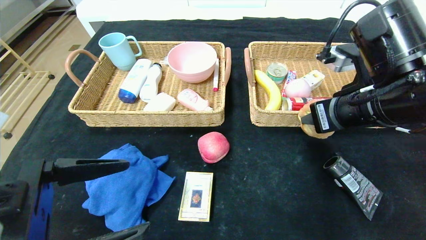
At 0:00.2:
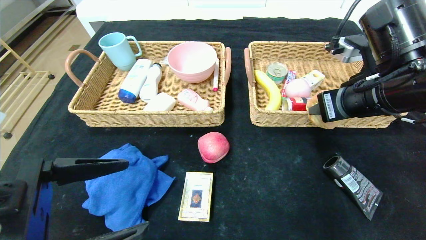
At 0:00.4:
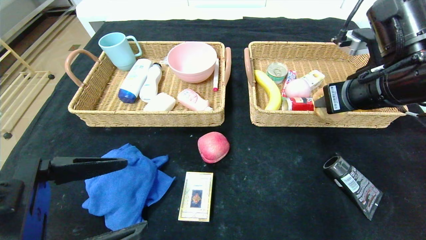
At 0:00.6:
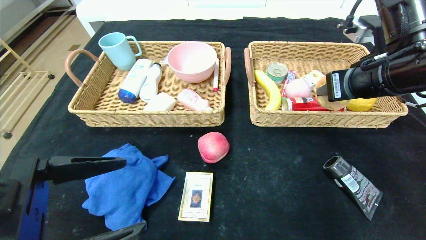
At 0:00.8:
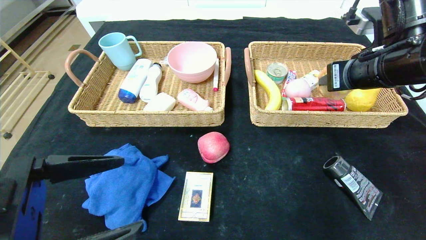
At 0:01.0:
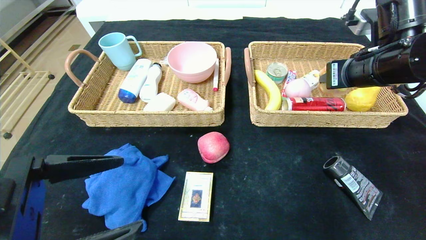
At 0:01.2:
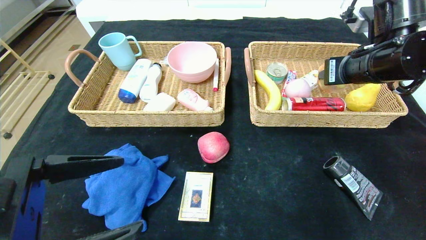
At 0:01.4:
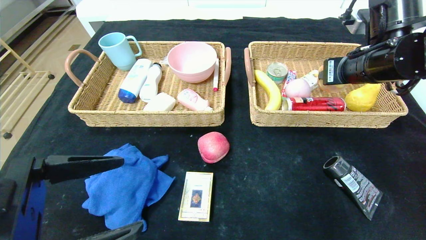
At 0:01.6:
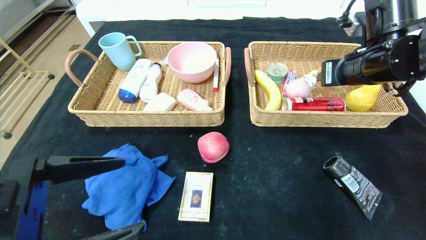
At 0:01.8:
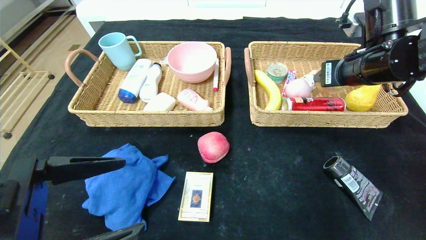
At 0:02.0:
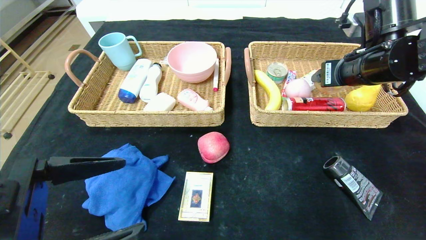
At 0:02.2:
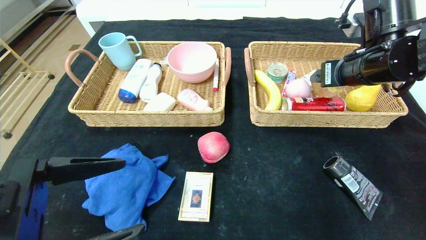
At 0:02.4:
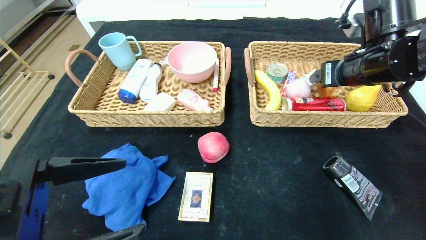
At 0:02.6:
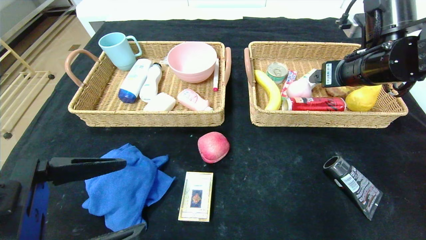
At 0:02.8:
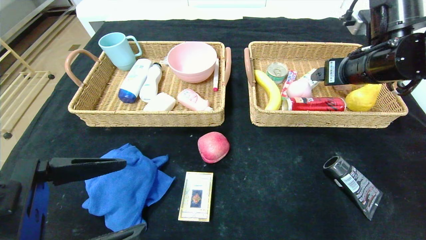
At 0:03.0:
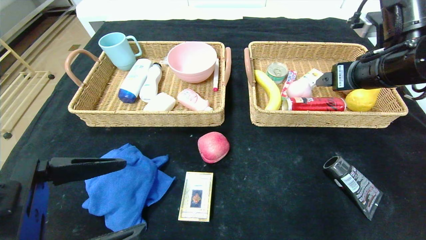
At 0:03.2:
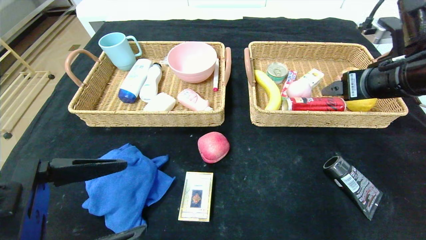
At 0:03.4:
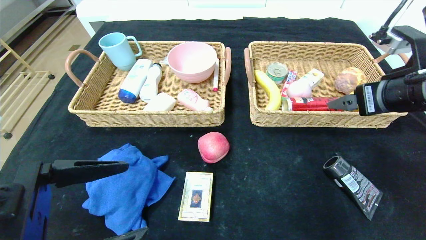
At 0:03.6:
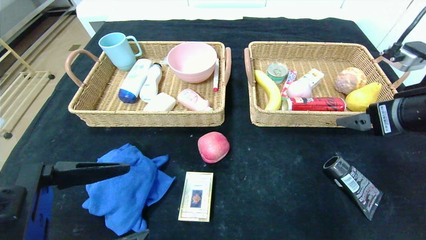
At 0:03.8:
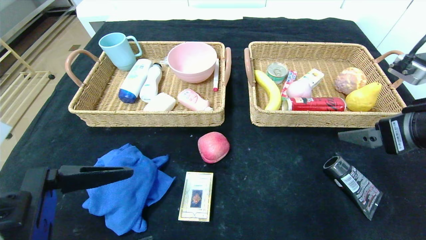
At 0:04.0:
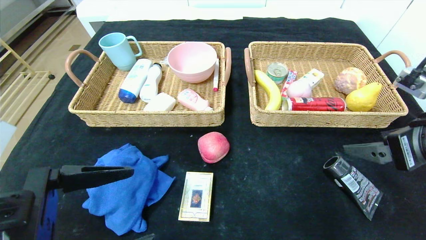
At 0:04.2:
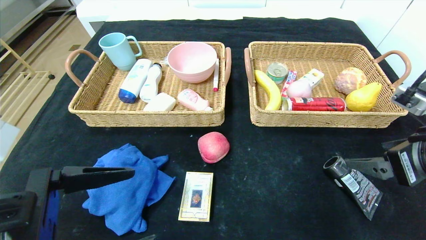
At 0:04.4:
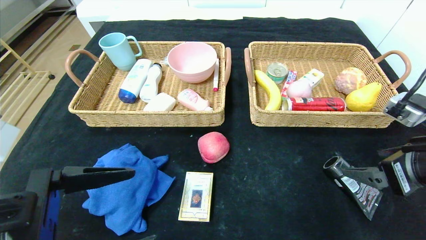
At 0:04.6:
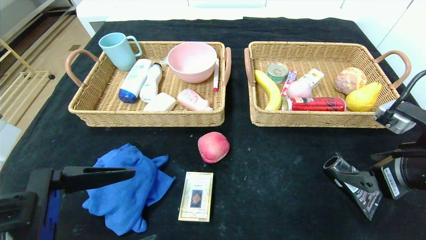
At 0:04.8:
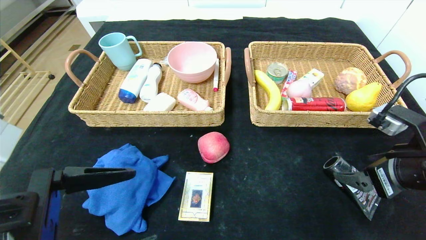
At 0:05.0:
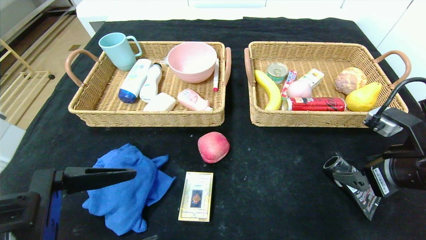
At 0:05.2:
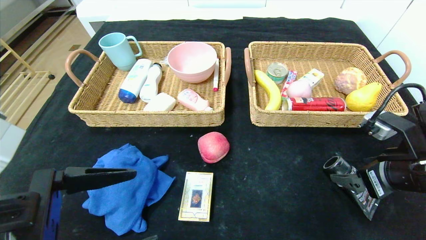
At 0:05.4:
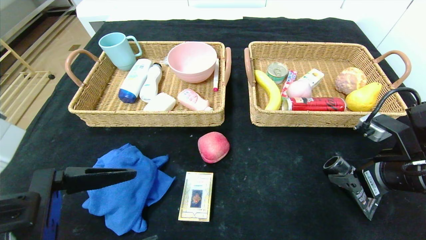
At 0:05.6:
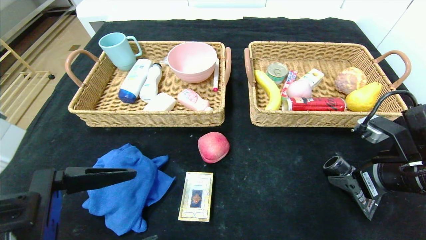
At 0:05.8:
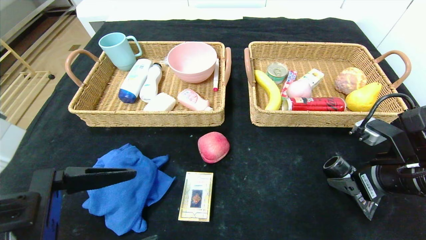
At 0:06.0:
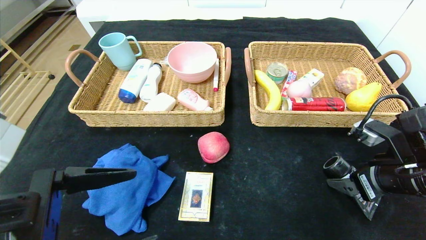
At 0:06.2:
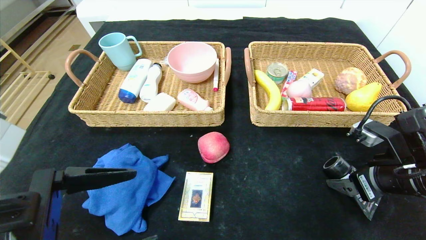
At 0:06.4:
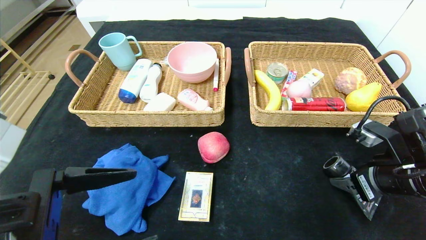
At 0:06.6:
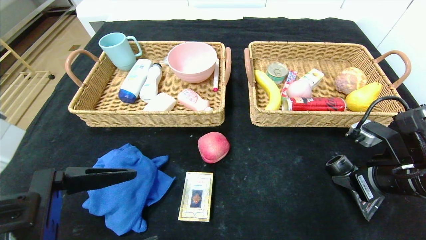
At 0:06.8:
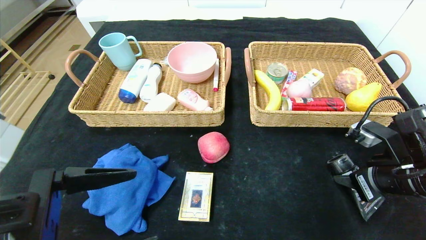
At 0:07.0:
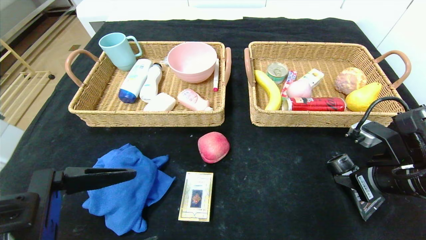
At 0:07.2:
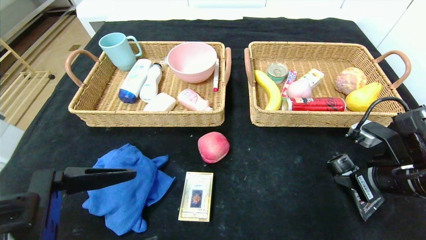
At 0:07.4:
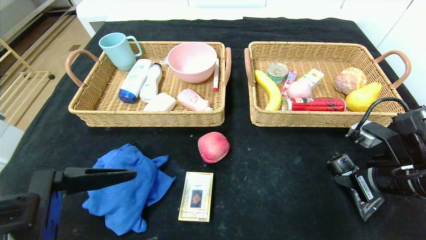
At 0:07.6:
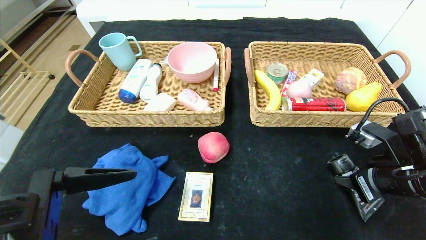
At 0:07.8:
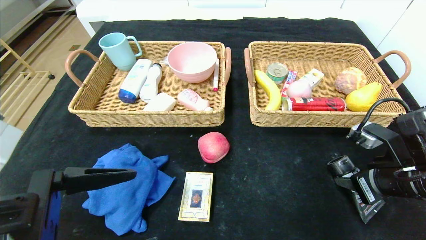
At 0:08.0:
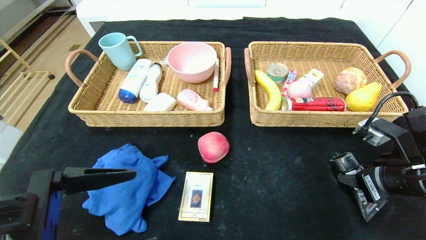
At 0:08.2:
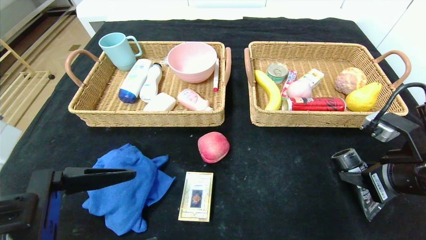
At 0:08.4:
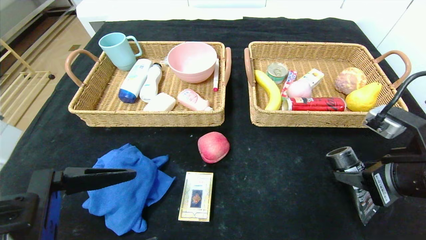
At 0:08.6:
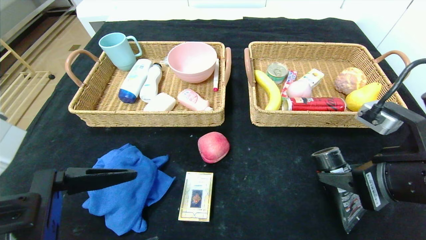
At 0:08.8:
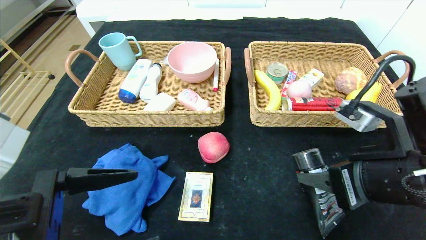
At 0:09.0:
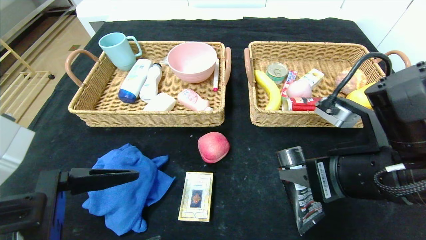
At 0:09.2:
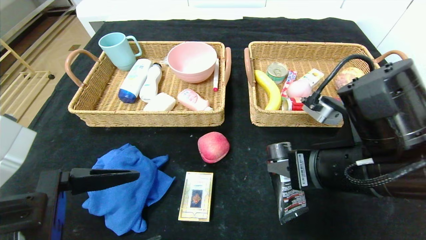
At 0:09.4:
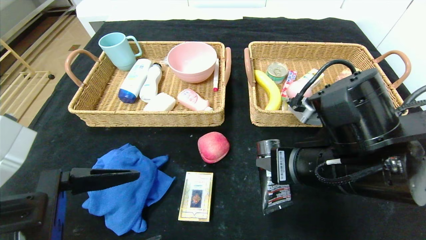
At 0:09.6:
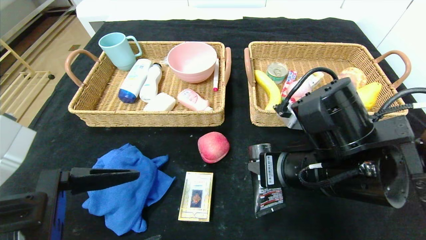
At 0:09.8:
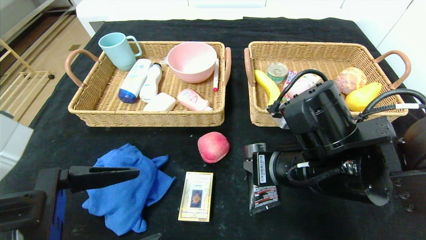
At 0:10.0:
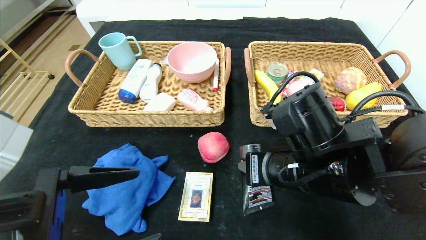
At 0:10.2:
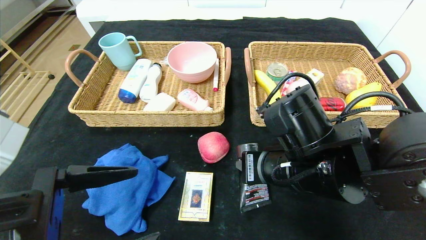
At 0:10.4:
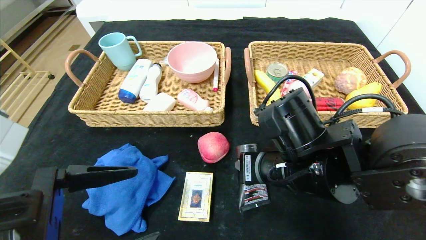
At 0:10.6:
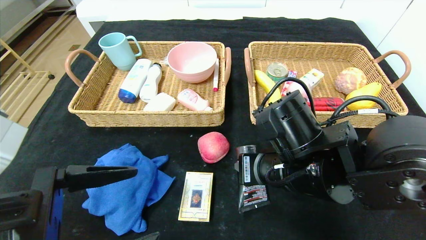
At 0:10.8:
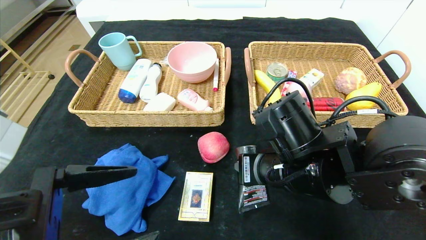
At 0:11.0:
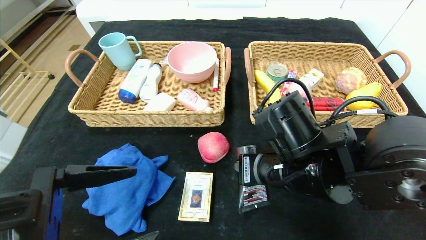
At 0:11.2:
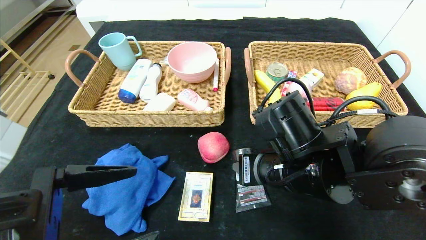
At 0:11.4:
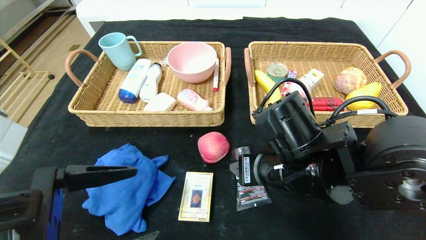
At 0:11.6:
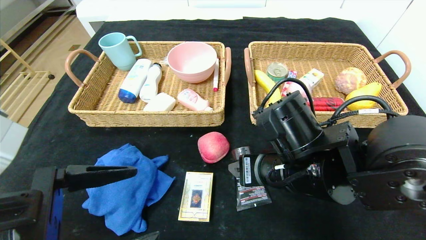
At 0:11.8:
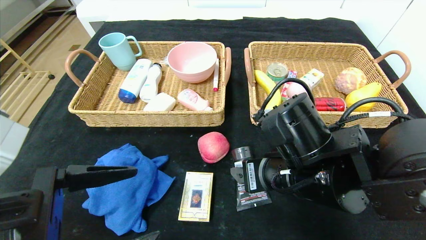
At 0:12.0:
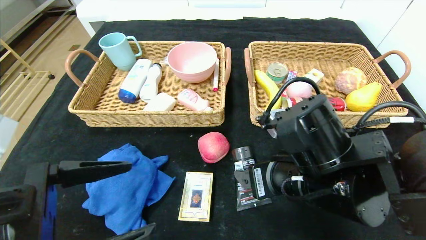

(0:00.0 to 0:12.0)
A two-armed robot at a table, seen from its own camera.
Step, 0:00.0 - 0:02.2: Grasp the round bread and put it in the right basket.
Step, 0:02.4 - 0:11.8: Place the soft cleanser in the center of the table.
0:00.0 - 0:01.6: The right gripper shifts roughly 10 cm forward.
0:01.6 - 0:03.0: The right gripper opens up.
0:03.0 - 0:04.4: The right gripper moves backward and downward, approximately 15 cm.
0:04.4 - 0:06.0: The right gripper heads downward, covering approximately 5 cm.
0:06.0 - 0:07.6: The right gripper closes its fingers.
0:07.6 - 0:09.0: The right gripper moves to the left and upward, some 10 cm.
0:09.0 - 0:10.4: The right gripper shifts about 10 cm to the left.
0:10.4 - 0:12.0: The right gripper opens.

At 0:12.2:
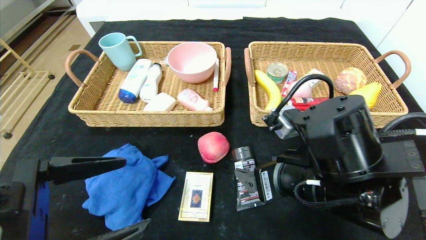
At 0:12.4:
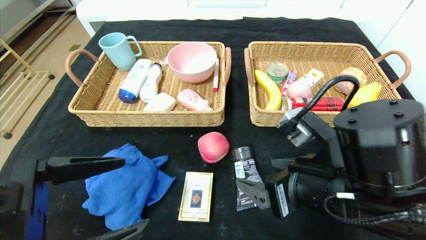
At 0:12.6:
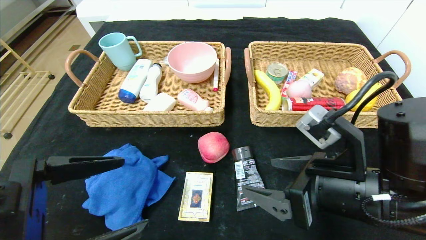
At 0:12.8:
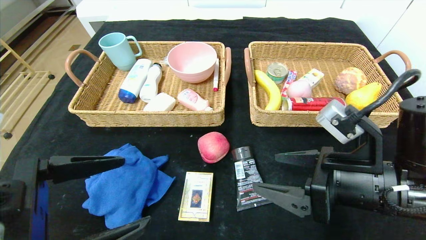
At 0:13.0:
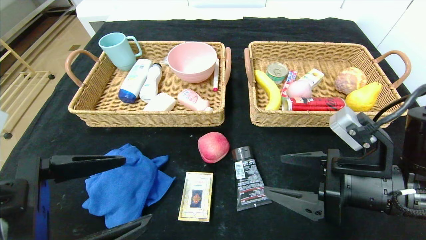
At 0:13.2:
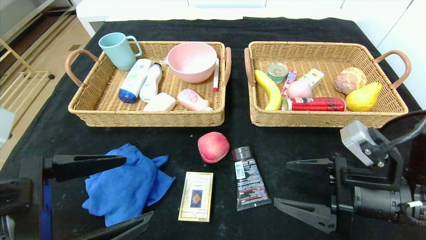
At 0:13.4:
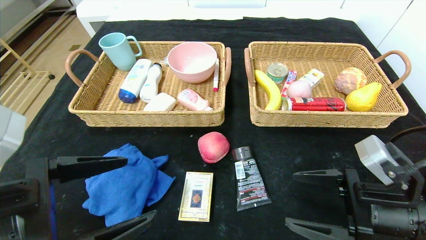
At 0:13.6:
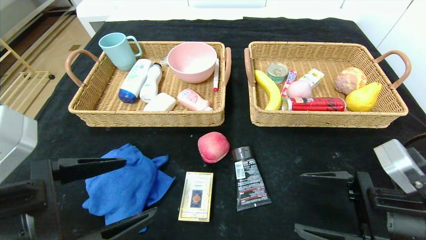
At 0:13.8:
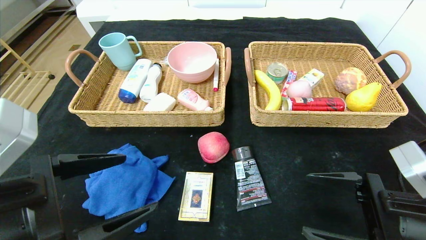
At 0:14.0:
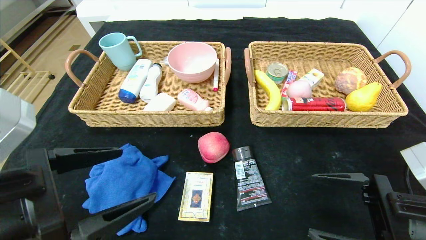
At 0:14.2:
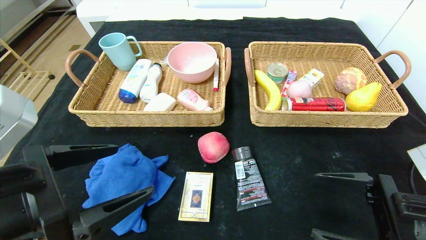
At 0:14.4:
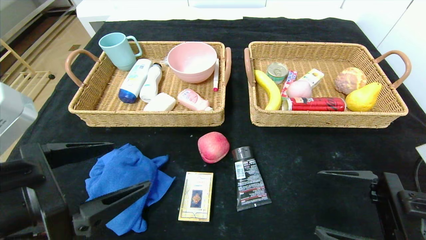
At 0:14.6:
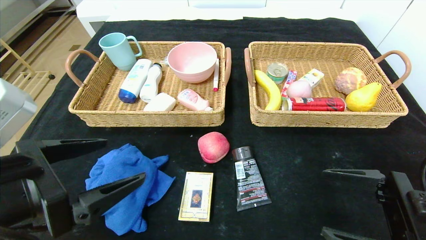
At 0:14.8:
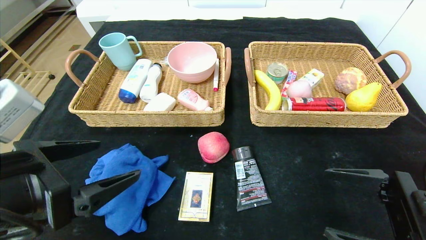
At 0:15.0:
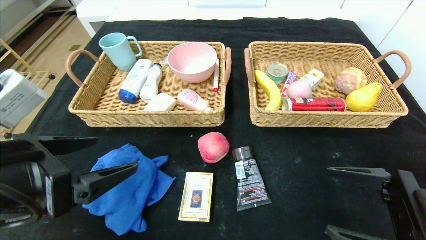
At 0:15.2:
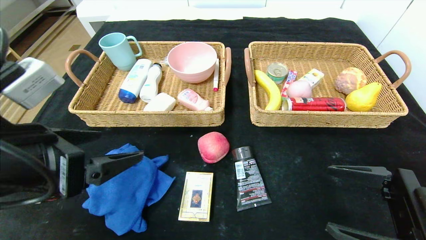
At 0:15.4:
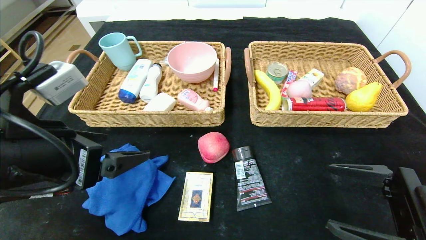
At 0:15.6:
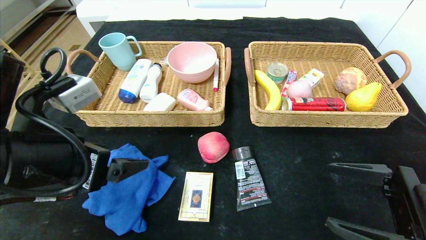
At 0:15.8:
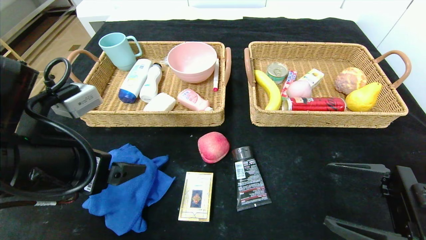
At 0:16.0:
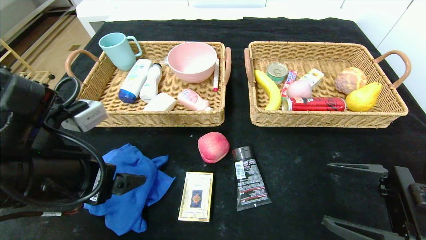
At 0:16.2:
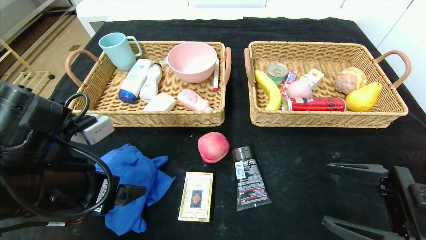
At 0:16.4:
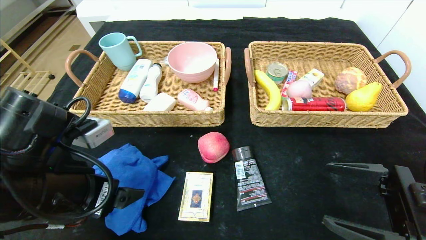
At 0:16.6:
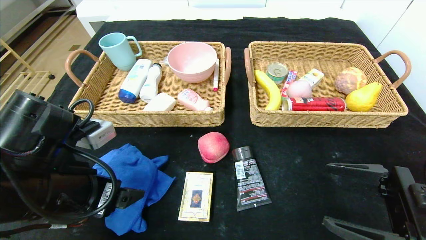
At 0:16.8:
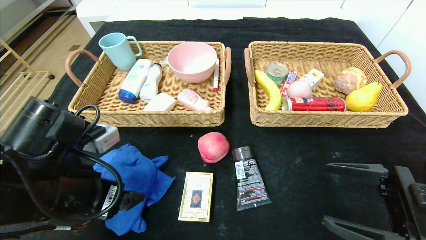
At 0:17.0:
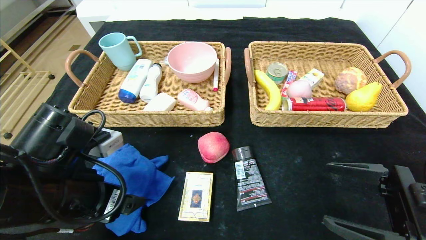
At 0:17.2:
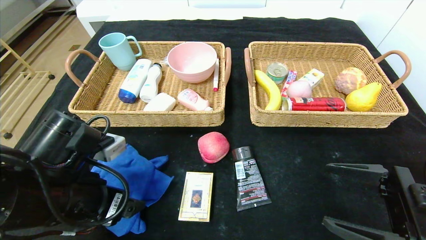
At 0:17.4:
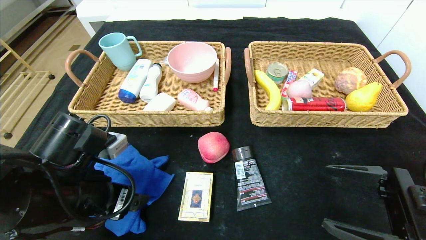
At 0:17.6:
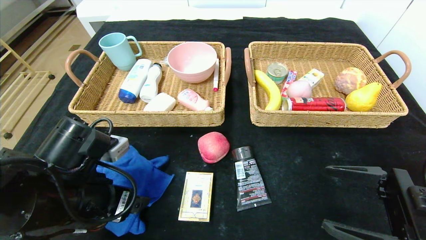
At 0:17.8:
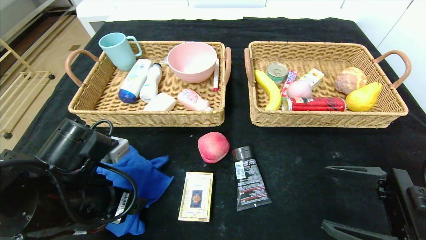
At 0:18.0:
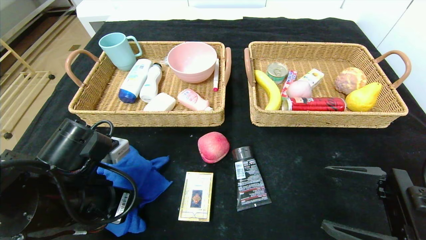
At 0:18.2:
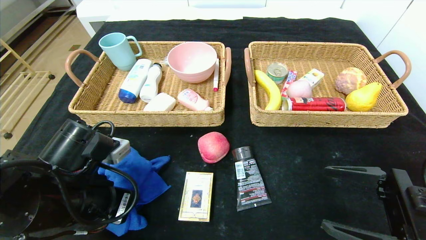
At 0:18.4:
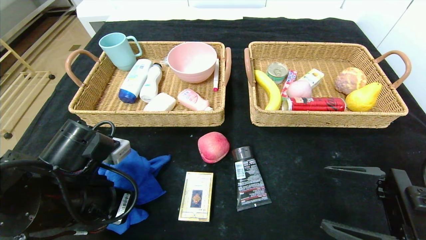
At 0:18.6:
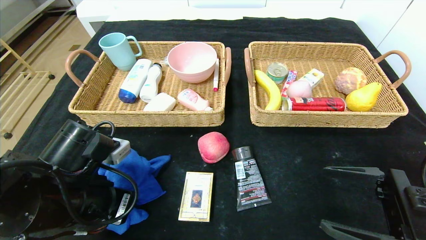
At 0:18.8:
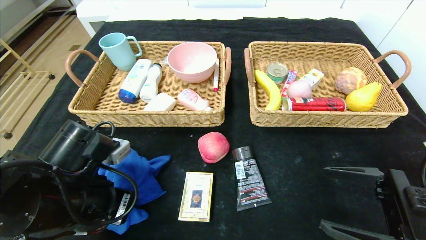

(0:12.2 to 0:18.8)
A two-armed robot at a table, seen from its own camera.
0:12.2 - 0:13.8: The right gripper goes about 15 cm to the right.
0:13.8 - 0:15.4: The left gripper goes about 5 cm forward.
0:15.4 - 0:17.2: The left gripper heads downward, covering some 10 cm.
0:17.2 - 0:18.8: The left gripper closes its fingers.
